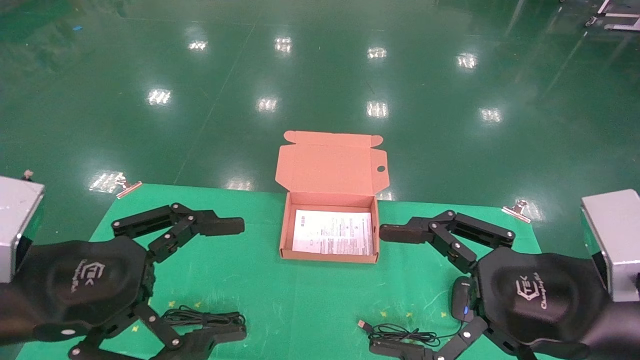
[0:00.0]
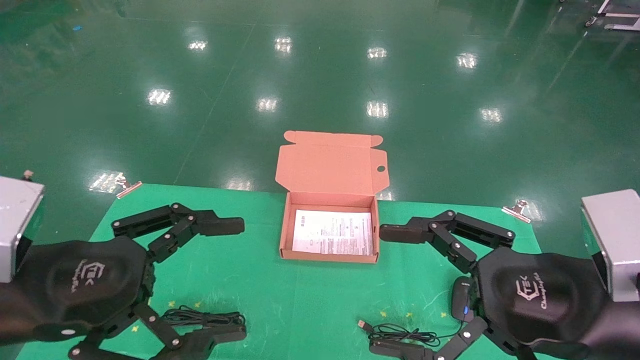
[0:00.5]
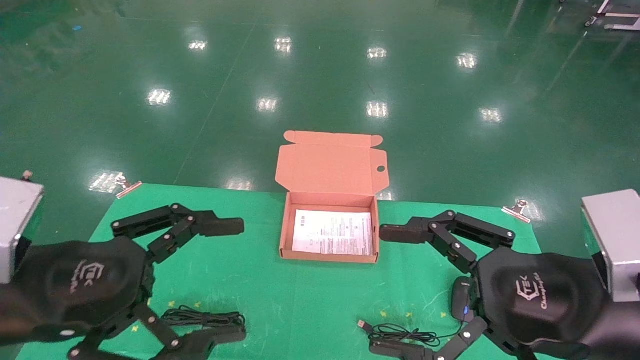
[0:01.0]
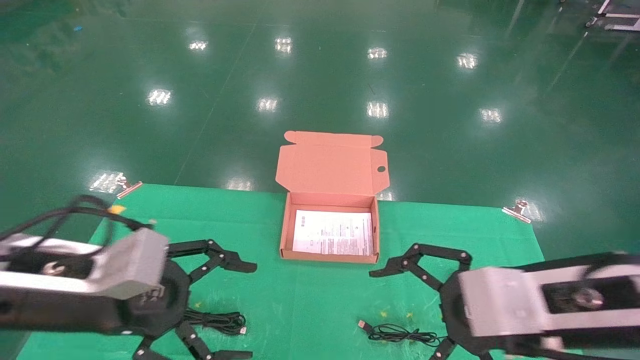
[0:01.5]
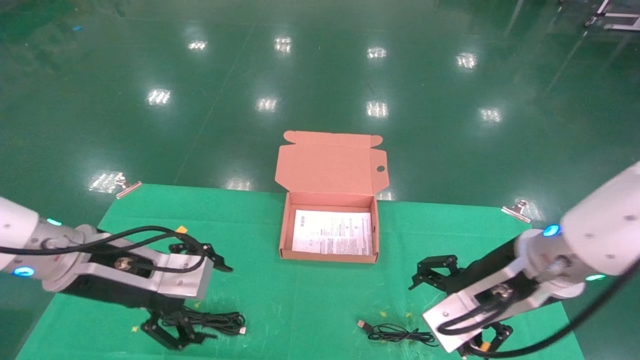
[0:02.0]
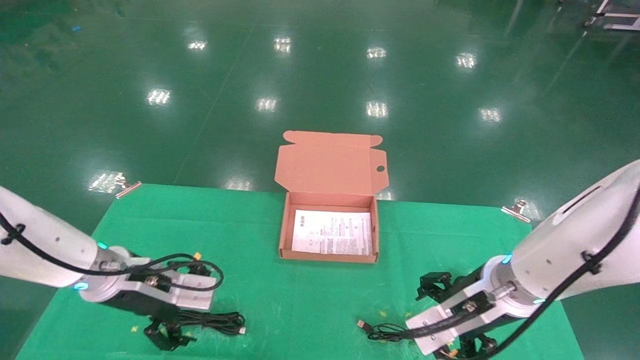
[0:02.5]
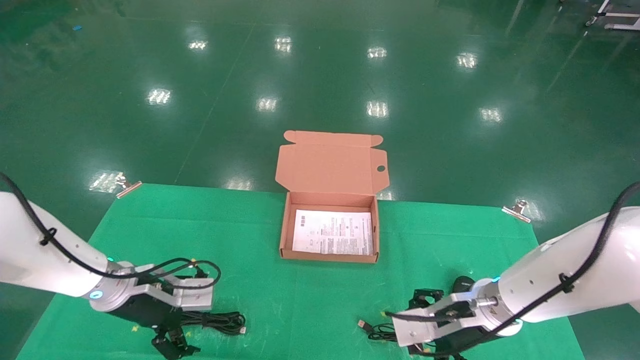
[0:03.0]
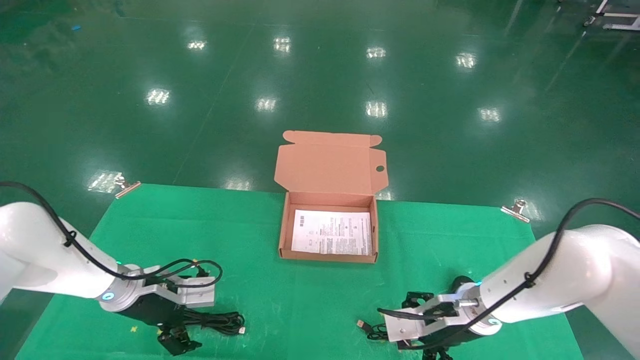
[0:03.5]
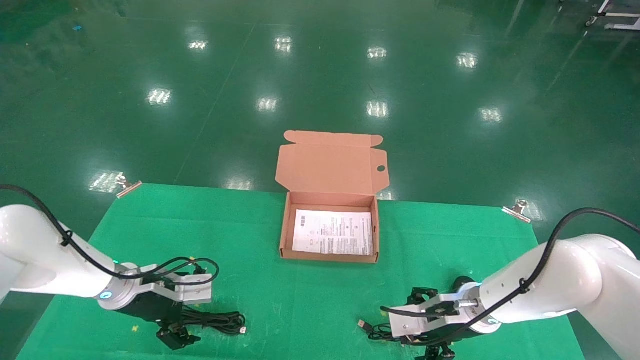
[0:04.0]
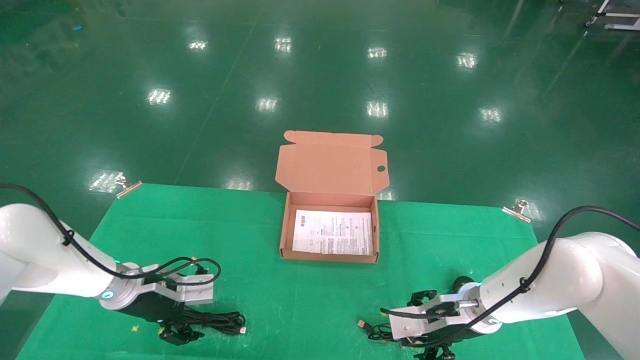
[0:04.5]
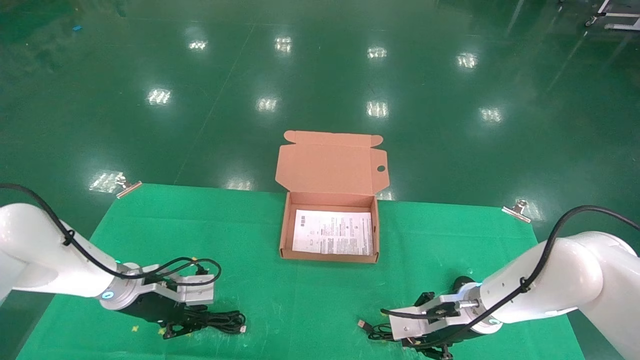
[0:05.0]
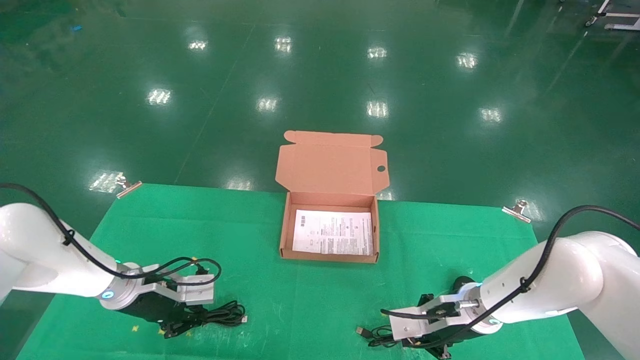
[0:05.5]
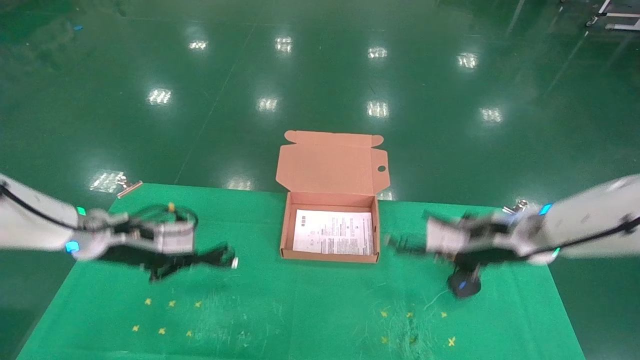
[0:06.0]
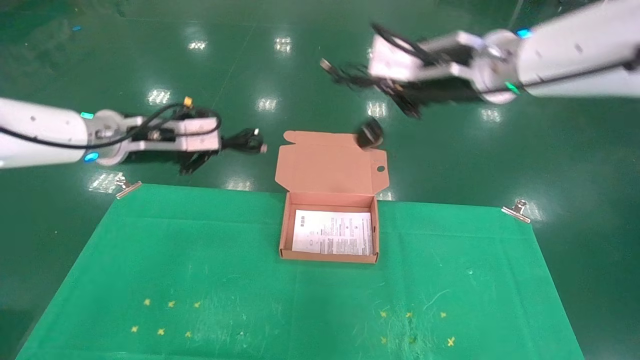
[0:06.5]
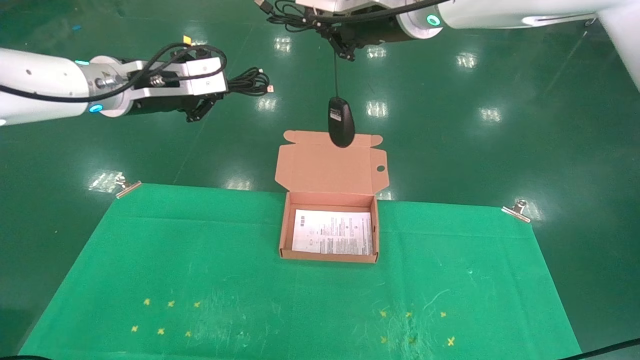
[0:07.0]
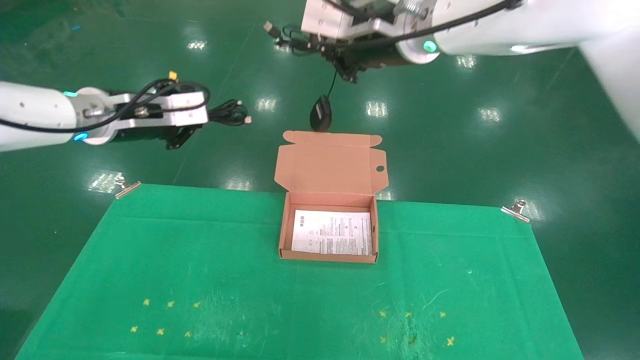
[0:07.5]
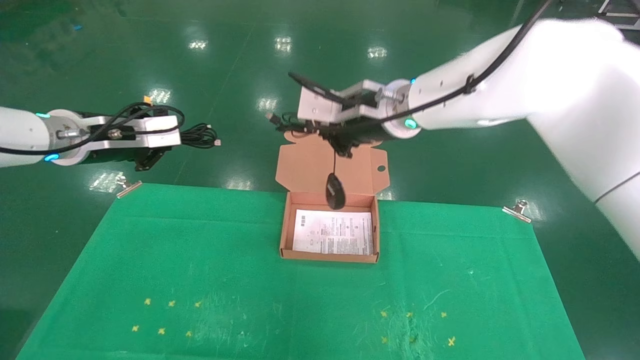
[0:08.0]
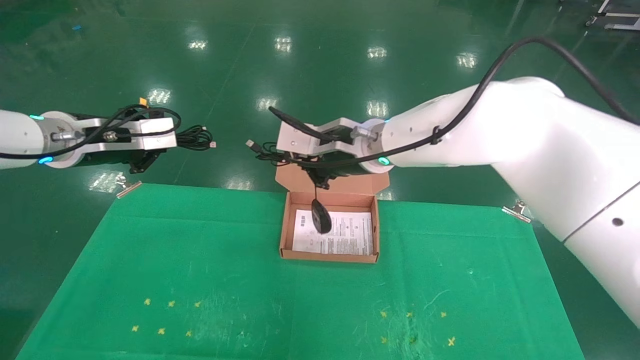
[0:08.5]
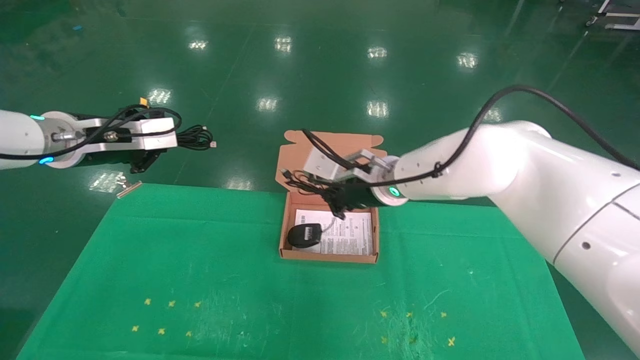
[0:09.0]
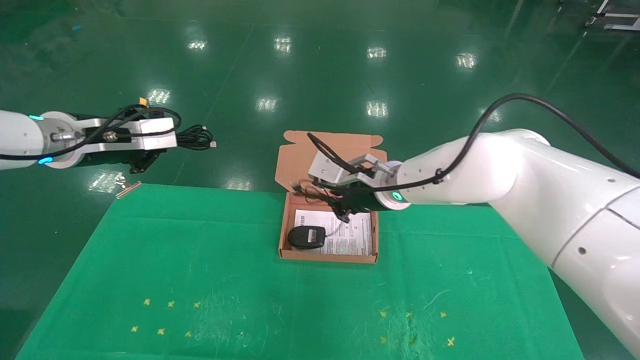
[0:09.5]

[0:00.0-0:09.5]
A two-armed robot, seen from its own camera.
Task of the whole recording: grasp data cable left put into box grasp mouse right put into box.
Step, 0:01.5 to 0:05.5: Grab and pick up both the mouse and power cord from the accessory packaging area at the same time.
0:00.0 to 0:02.0: The two grippers go some 10 cm forward.
0:02.0 to 0:04.0: The left gripper heads forward and downward, covering roughly 15 cm. The right gripper moves downward and forward, roughly 20 cm.
0:04.0 to 0:05.5: The right gripper closes up; the left gripper closes its fingers.
0:05.5 to 0:07.5: The two grippers go about 30 cm upward.
0:07.5 to 0:09.5: The right gripper heads downward, covering some 20 cm.

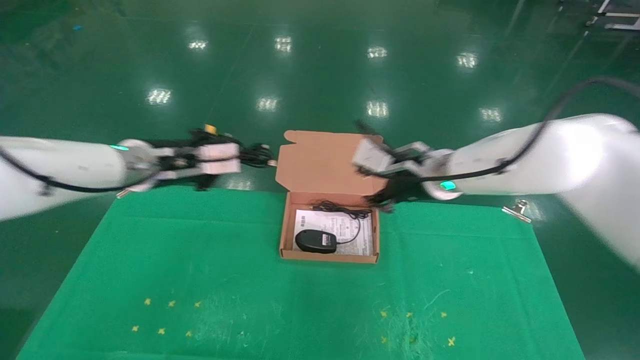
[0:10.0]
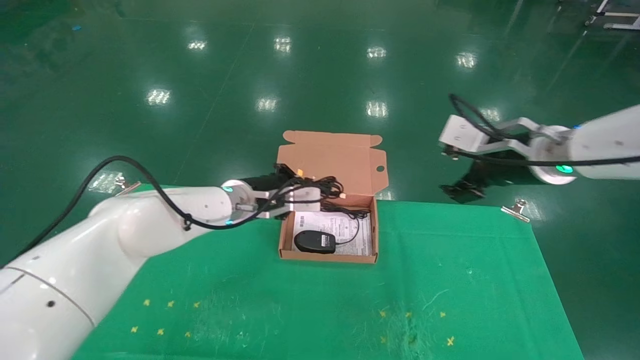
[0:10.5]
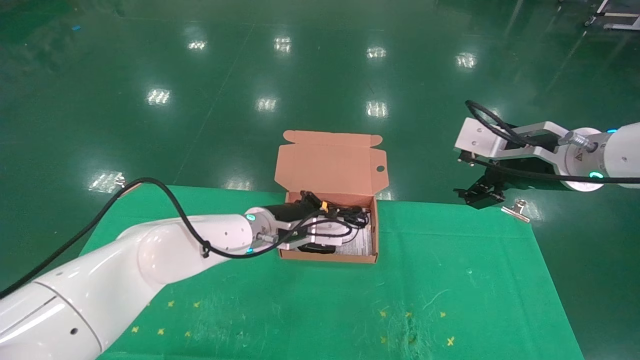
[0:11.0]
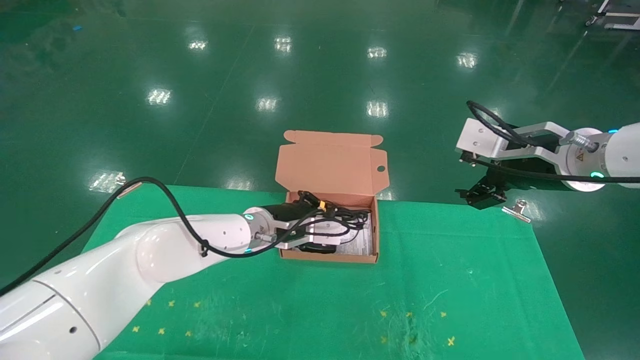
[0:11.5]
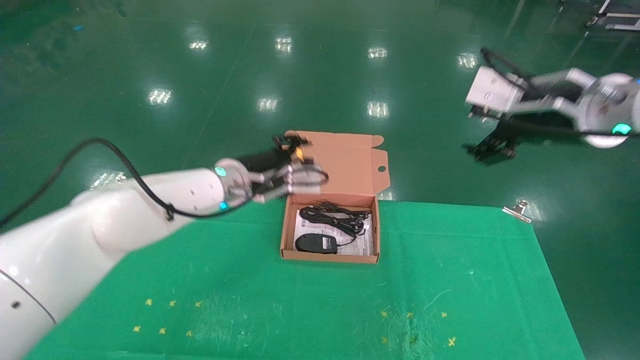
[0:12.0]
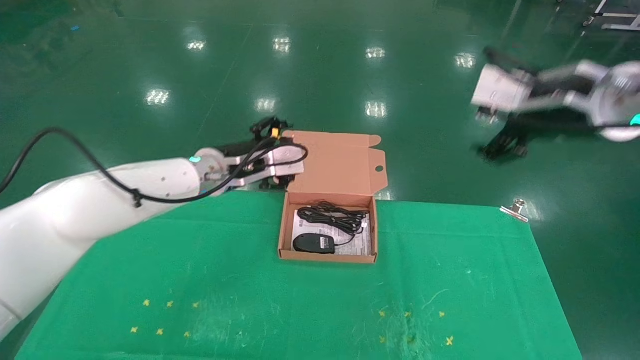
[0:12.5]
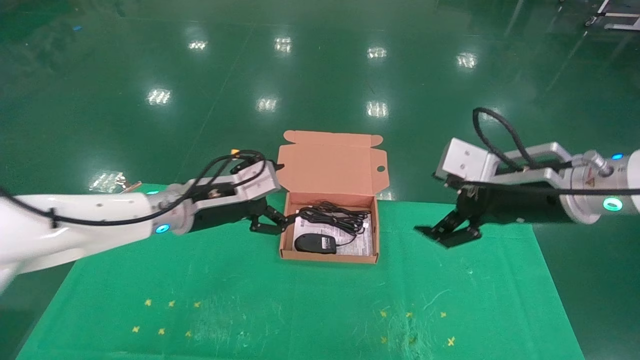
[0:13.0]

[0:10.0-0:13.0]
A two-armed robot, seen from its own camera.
Task of the whole recording: grasp data cable left put into box grasp mouse right put into box.
0:10.0 to 0:11.5: The left gripper travels to the right and downward by roughly 20 cm, while the right gripper is displaced to the right and backward by roughly 15 cm, and opens its fingers.
0:11.5 to 0:13.0: The left gripper moves to the left, backward and upward, about 15 cm, and opens its fingers. The right gripper moves some 5 cm.
